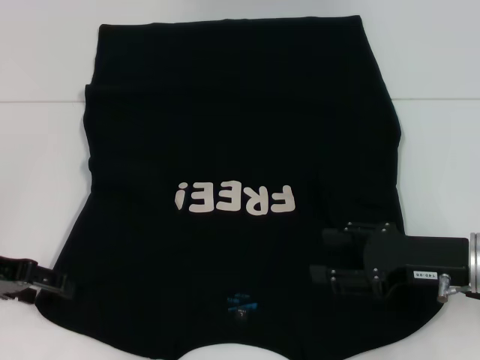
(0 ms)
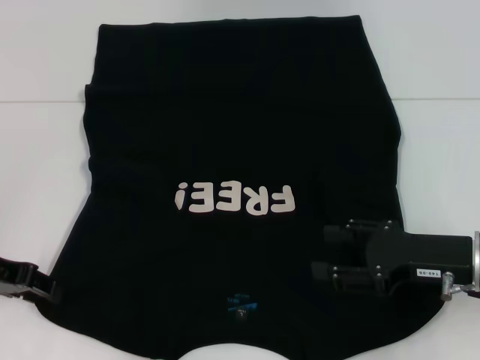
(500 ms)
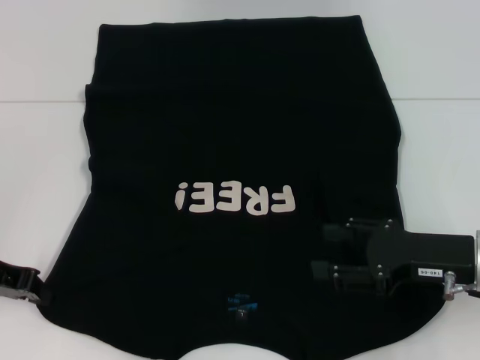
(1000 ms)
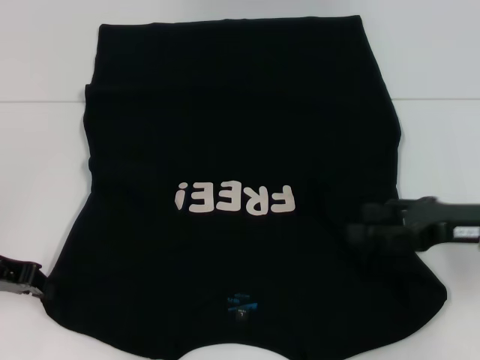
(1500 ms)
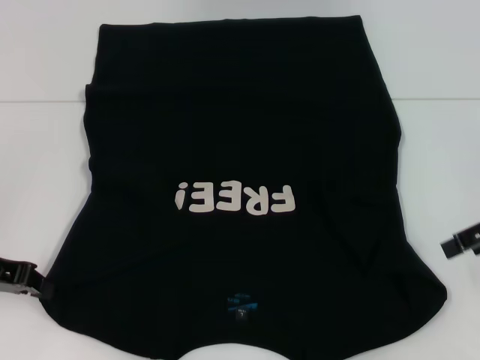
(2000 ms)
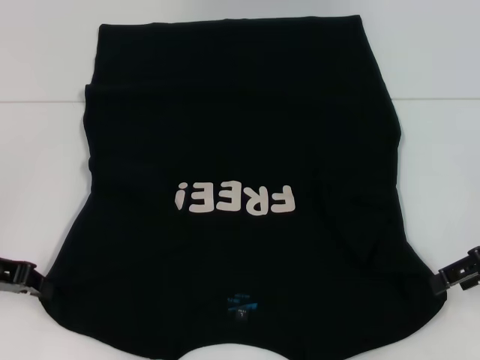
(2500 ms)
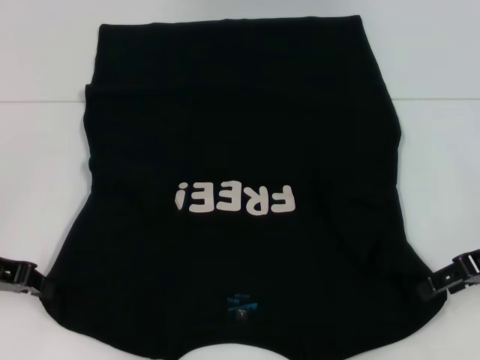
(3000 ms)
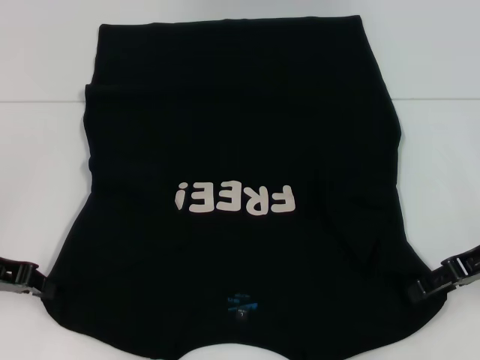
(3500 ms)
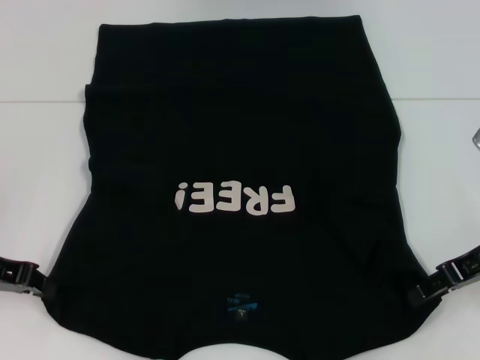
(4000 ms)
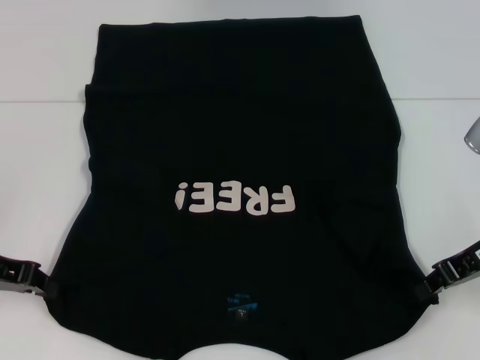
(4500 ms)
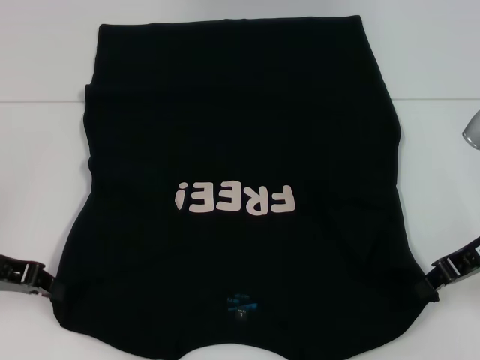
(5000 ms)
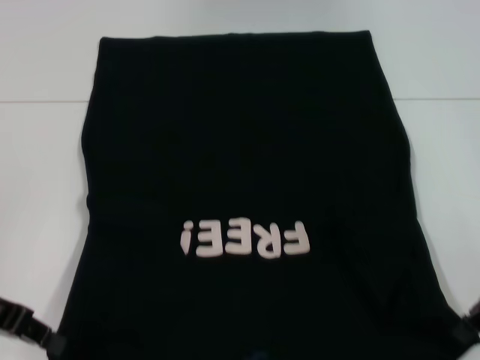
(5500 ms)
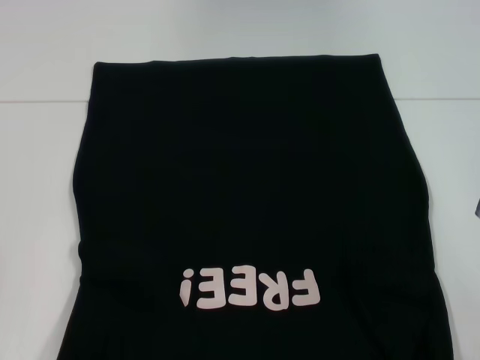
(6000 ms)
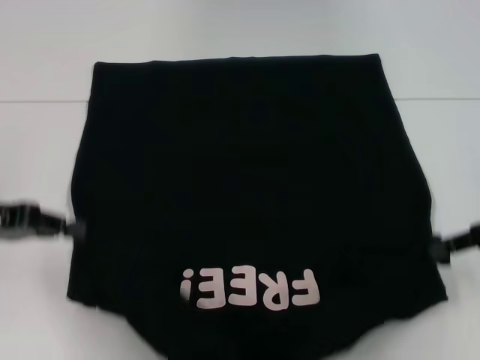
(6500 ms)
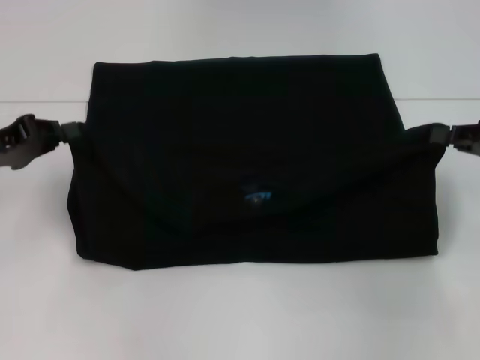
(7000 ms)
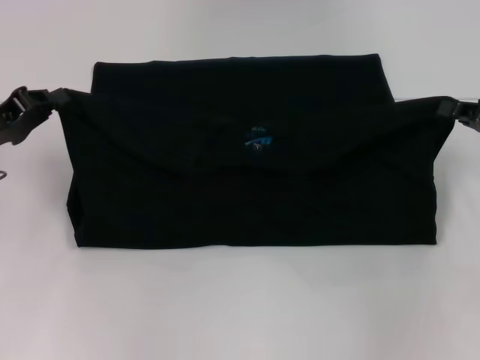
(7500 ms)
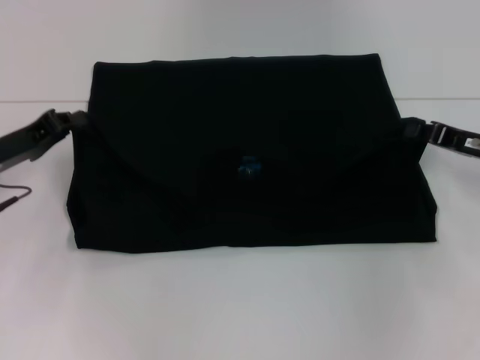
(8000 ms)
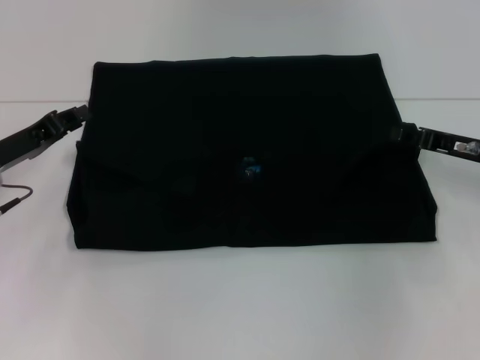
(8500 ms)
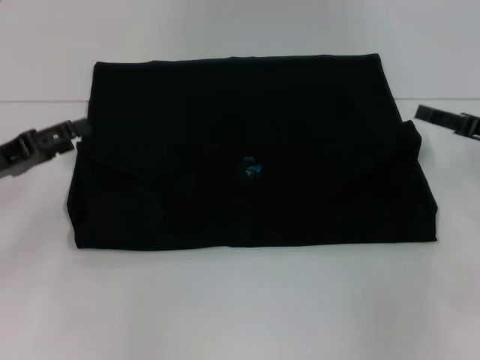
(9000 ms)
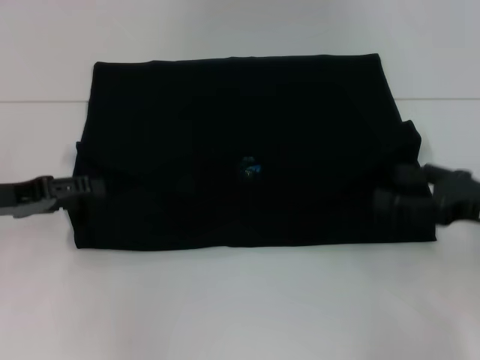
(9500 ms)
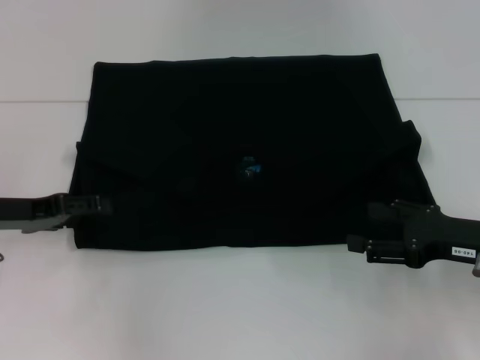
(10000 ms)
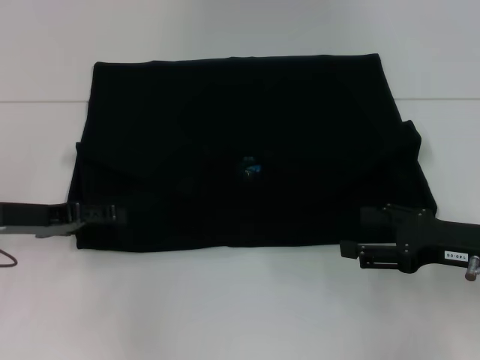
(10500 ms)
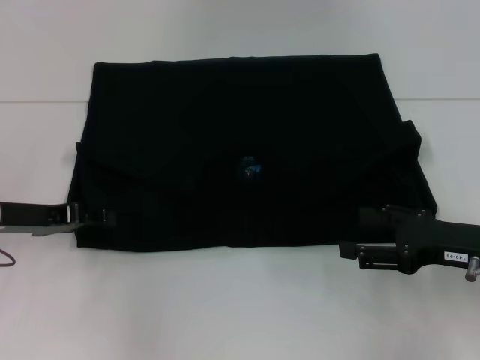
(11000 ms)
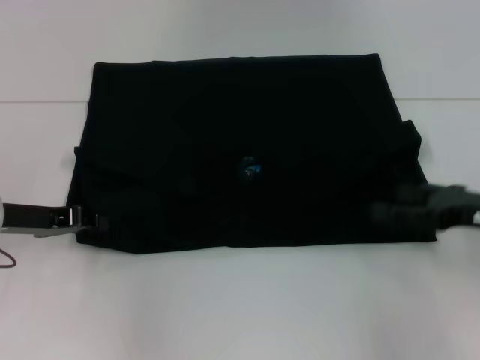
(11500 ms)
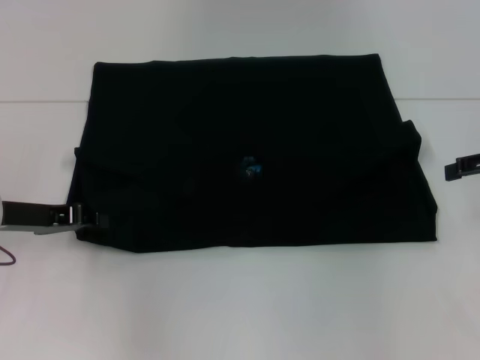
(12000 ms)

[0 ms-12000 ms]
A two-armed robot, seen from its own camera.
Step, 0 ms to 1500 ms: Grab the bottom left corner with your left hand.
Step, 2000 ms to 4500 ms: Grab the bottom right corner with your right hand.
Step, 5000 ms to 9000 ms: Fold the clothes with your left hand.
Step, 5000 ms to 9000 ms: Fold the clothes with your right hand.
0 ms to 2000 ms: The right gripper moves upward, to the right and forward, approximately 15 cm. The left gripper closes its fingers.
2000 ms to 4000 ms: The right gripper travels downward by roughly 5 cm.
4000 ms to 6000 ms: The right gripper closes its fingers.
6000 ms to 8000 ms: The two grippers go approximately 10 cm forward.
8000 ms to 10000 ms: The left gripper opens its fingers; the right gripper goes about 10 cm backward, and opens up.
10000 ms to 12000 ms: The right gripper travels upward, forward and to the right by about 15 cm. Meanwhile the left gripper closes its fingers.

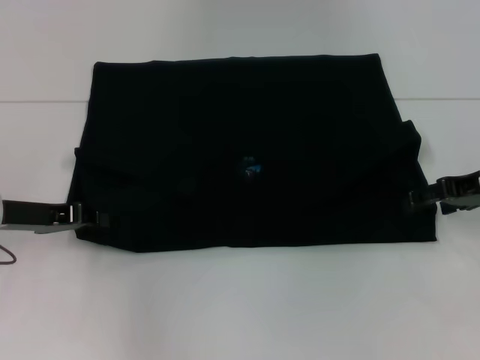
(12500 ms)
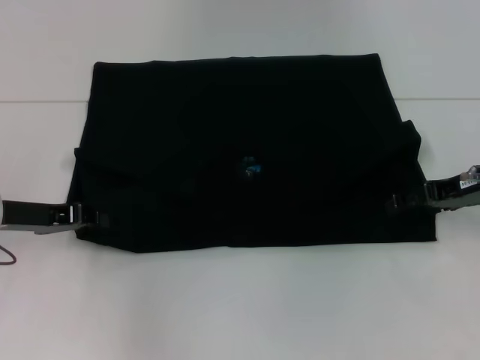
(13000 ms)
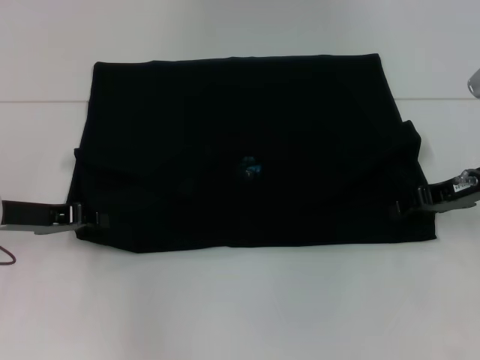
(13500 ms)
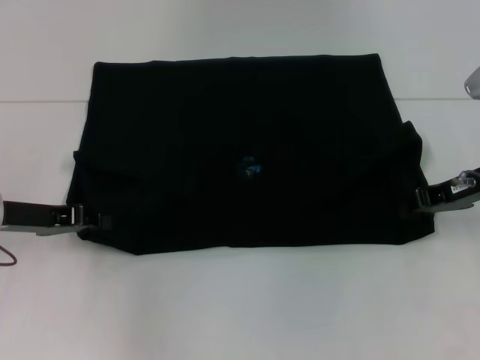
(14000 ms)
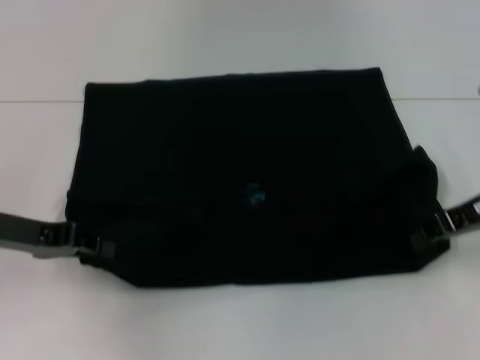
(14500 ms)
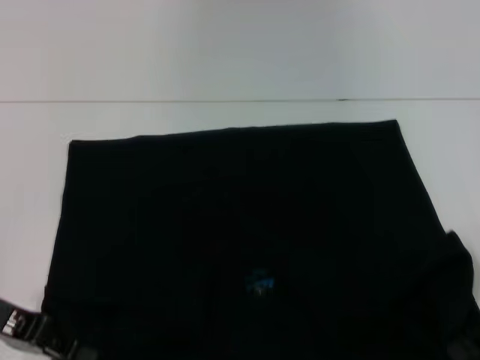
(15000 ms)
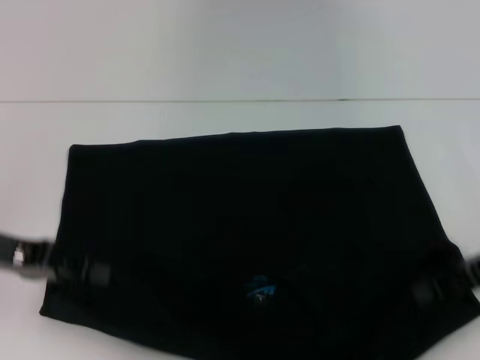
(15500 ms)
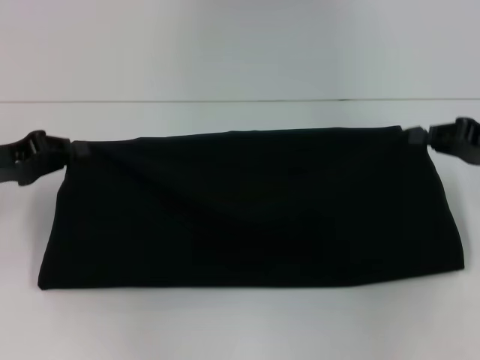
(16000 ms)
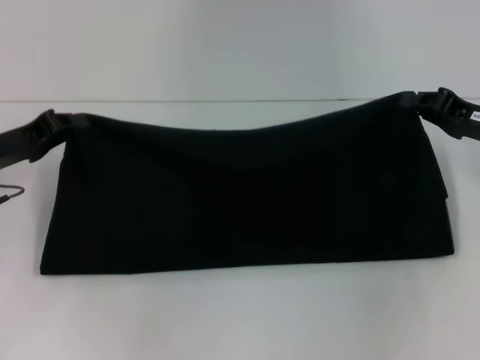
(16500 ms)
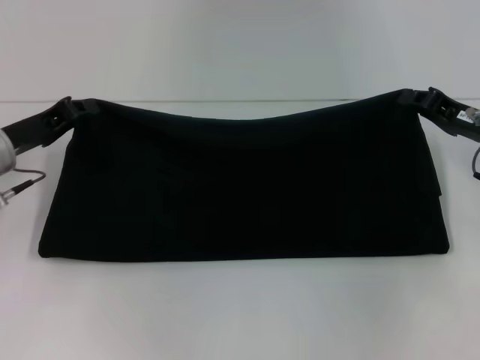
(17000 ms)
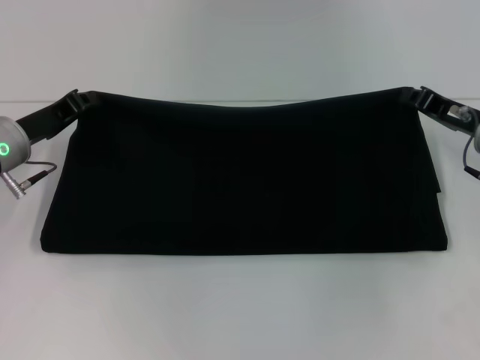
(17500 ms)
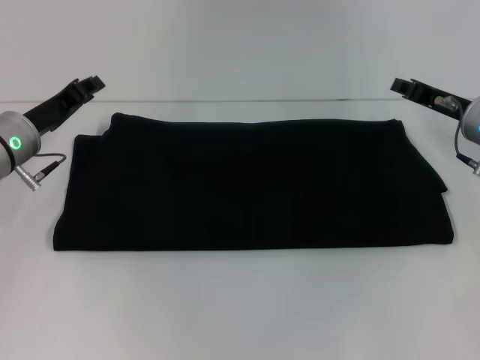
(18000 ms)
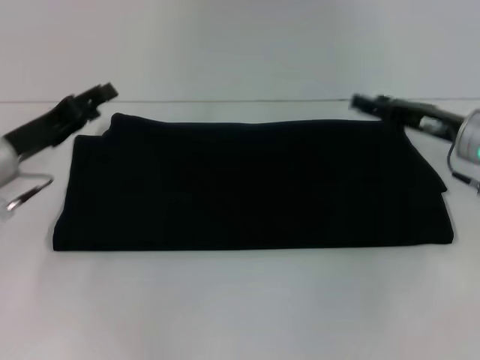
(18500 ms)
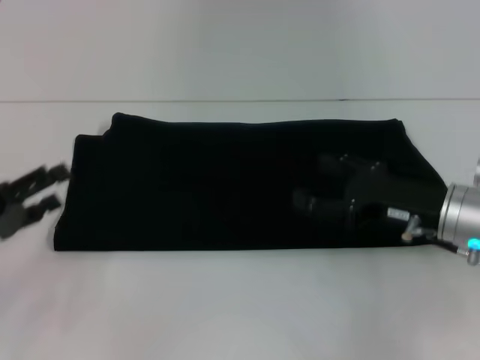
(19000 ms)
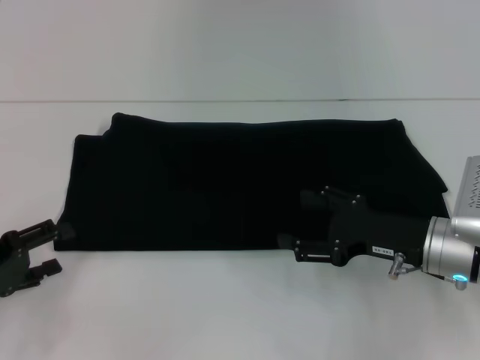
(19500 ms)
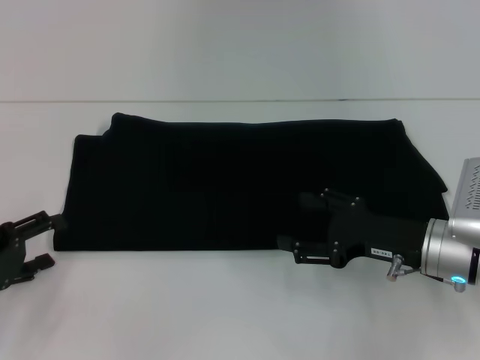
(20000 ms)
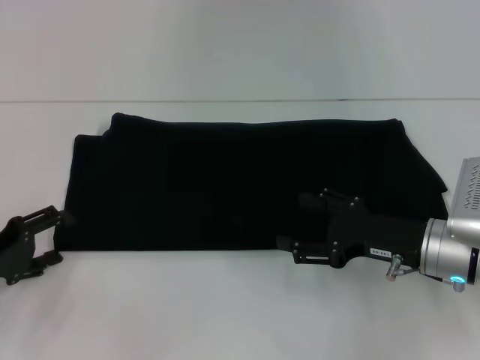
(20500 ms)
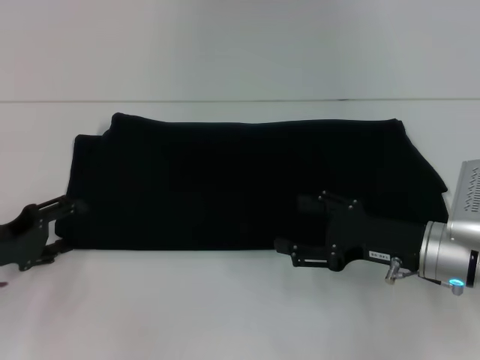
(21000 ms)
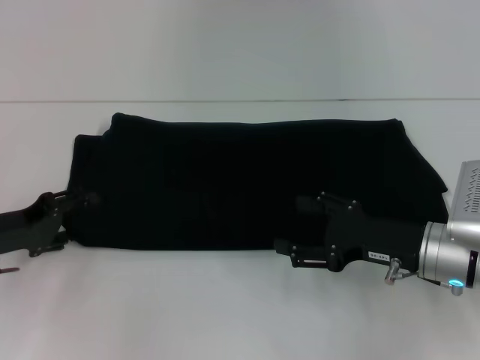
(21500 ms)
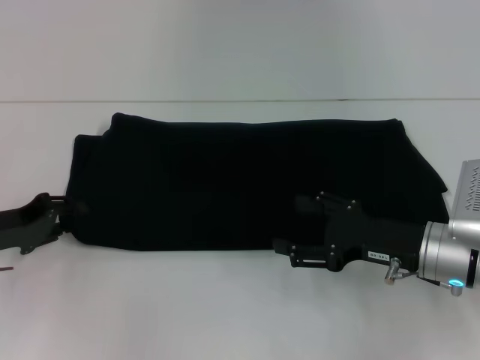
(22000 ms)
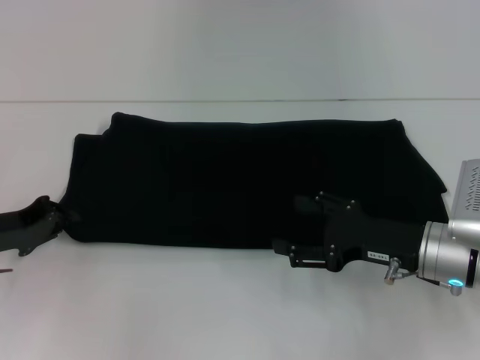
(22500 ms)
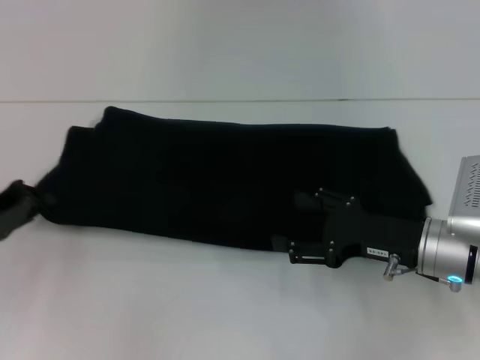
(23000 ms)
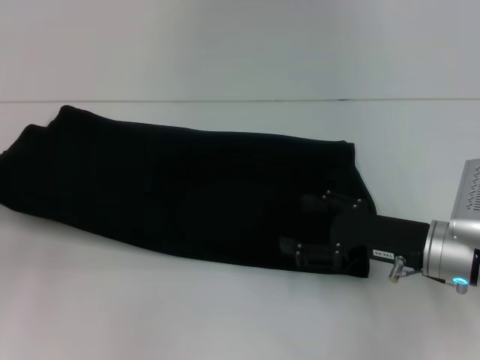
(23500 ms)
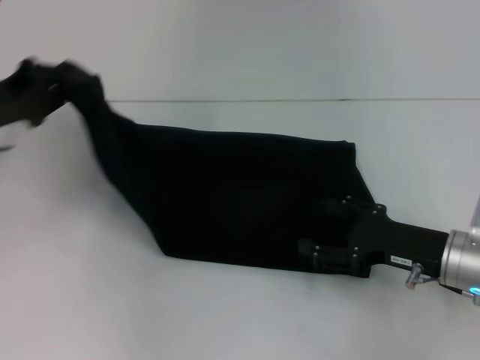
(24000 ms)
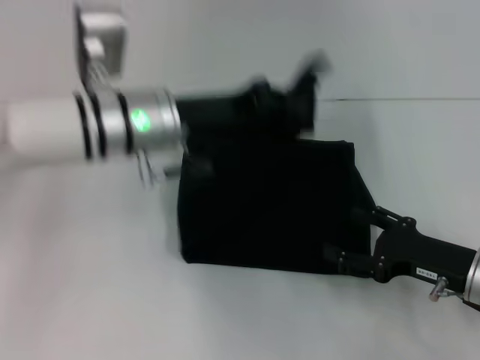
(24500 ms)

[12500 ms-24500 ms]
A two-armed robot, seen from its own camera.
Step, 12500 ms to 15000 ms: Pull the clothes with your left hand.
Step, 12500 ms to 15000 ms: Pull the clothes with your right hand.
Step, 15500 ms to 18000 ms: Fold the clothes with your right hand.
12500 ms to 14500 ms: The right gripper closes up.
16500 ms to 18500 ms: The left gripper opens up. The right gripper opens.
18500 ms to 20500 ms: The left gripper goes roughly 10 cm backward and to the left, and opens its fingers; the right gripper goes about 10 cm backward, and opens.
20500 ms to 22500 ms: The left gripper closes.
22500 ms to 24500 ms: The right gripper ends up some 5 cm from where it was, while the left gripper shifts roughly 20 cm to the right and upward.

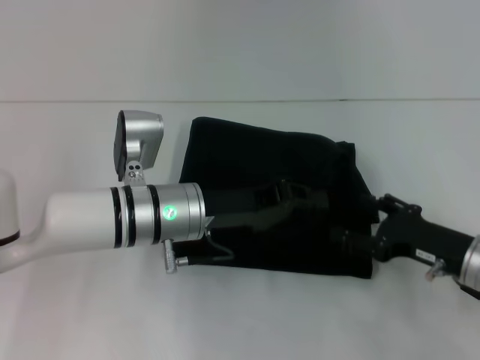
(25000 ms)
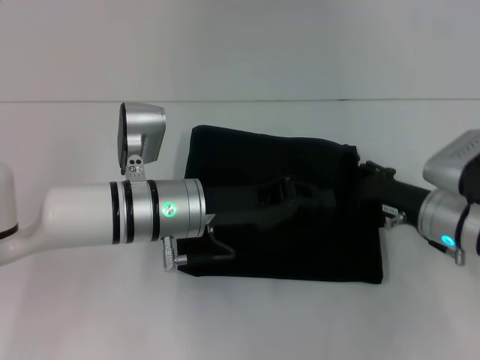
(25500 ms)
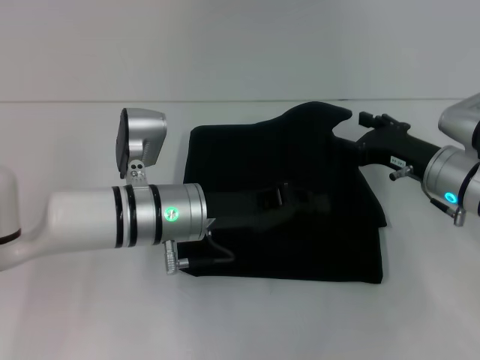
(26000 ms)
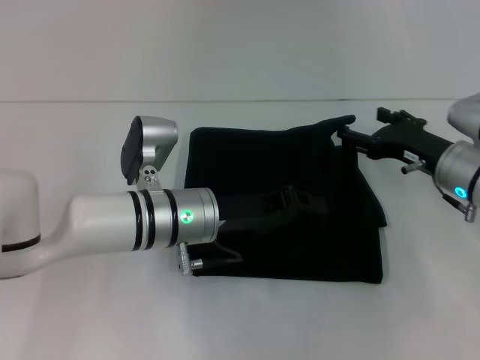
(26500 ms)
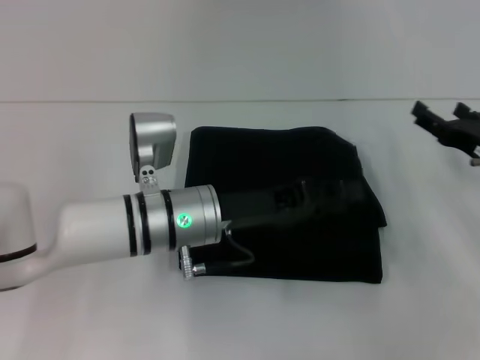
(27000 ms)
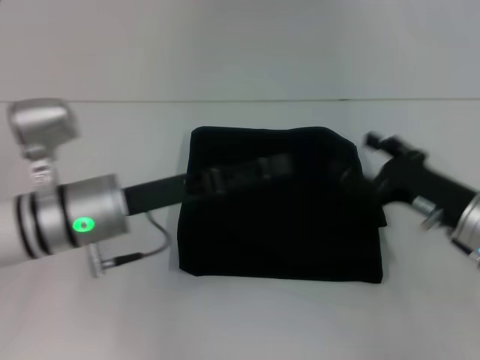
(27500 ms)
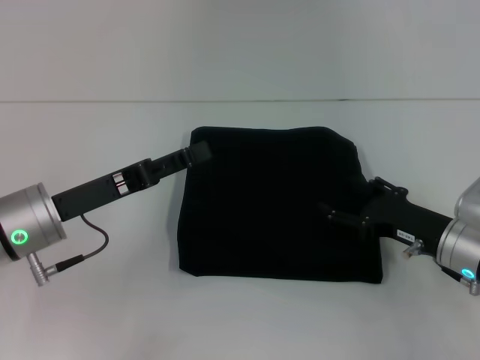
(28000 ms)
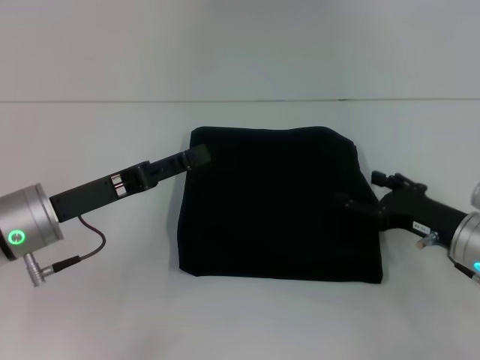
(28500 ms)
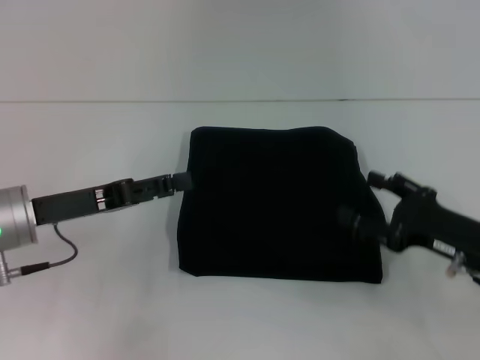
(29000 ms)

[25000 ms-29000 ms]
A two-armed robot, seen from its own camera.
25000 ms to 27000 ms: The right gripper is displaced forward by about 5 cm.
27000 ms to 29000 ms: The right gripper goes roughly 5 cm backward. The left gripper is displaced to the left by approximately 15 cm, and opens up.
